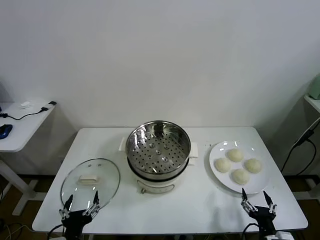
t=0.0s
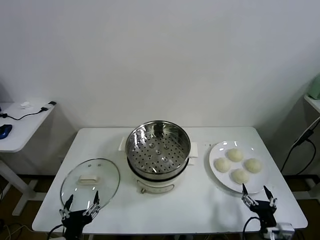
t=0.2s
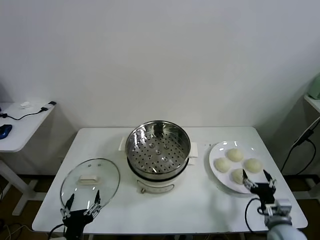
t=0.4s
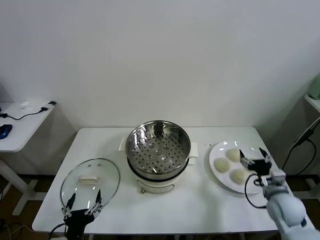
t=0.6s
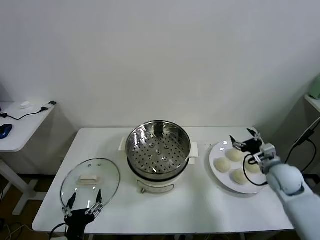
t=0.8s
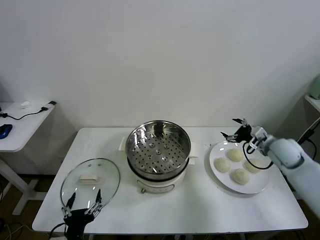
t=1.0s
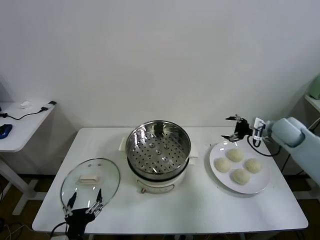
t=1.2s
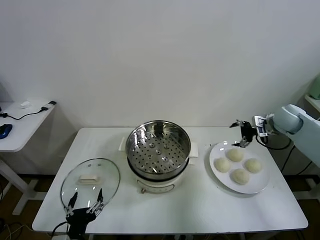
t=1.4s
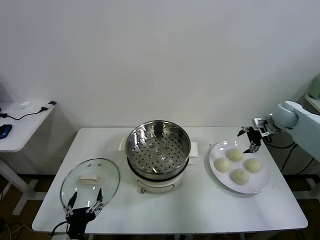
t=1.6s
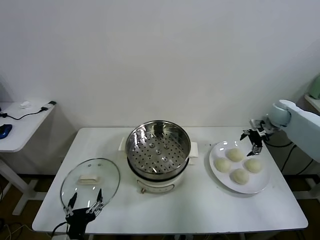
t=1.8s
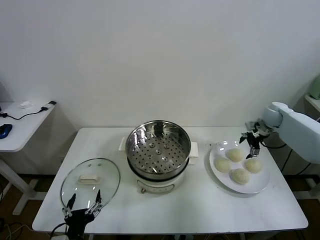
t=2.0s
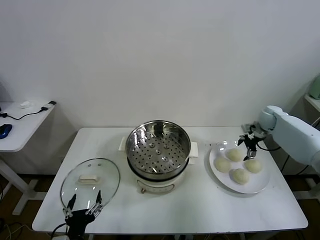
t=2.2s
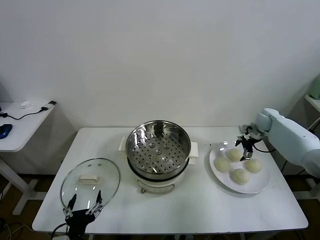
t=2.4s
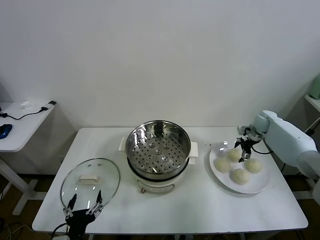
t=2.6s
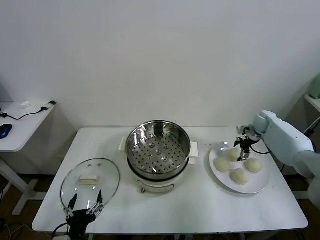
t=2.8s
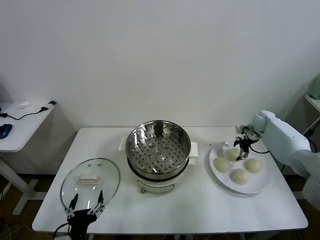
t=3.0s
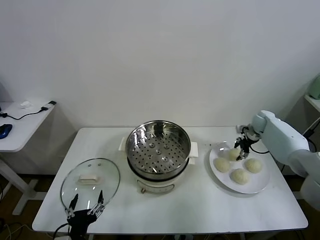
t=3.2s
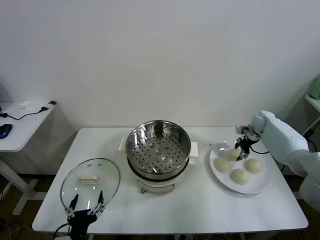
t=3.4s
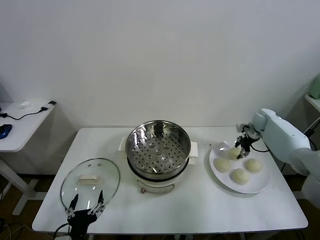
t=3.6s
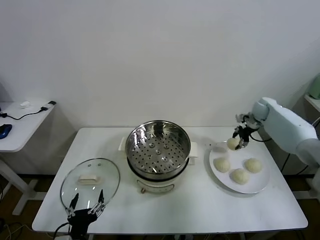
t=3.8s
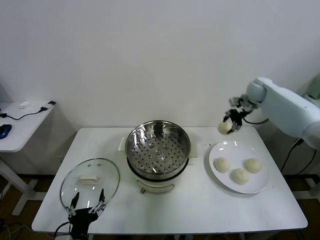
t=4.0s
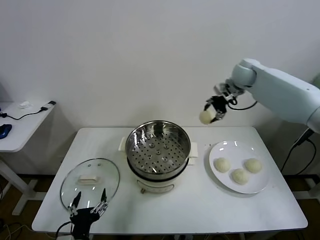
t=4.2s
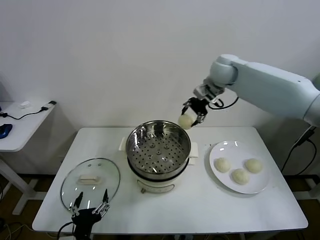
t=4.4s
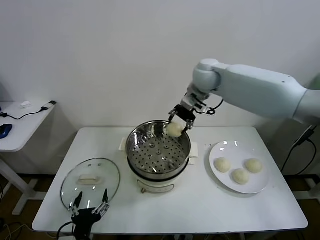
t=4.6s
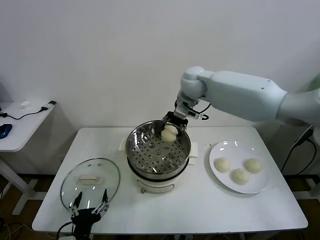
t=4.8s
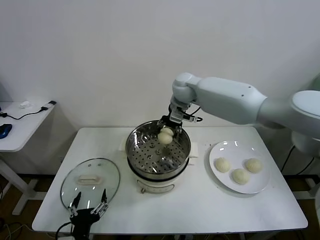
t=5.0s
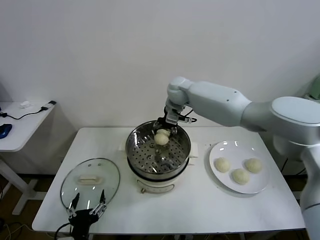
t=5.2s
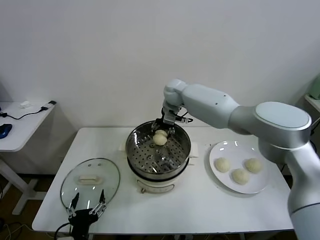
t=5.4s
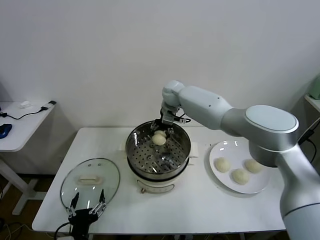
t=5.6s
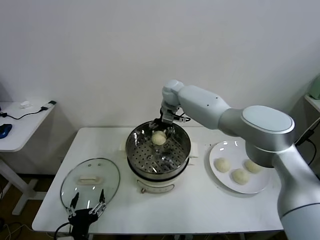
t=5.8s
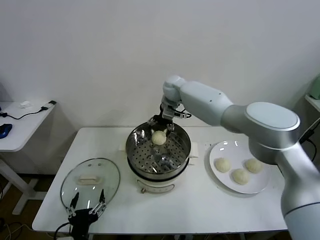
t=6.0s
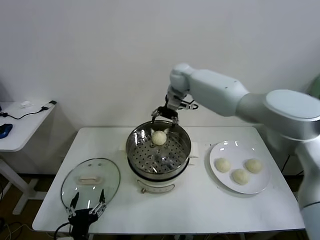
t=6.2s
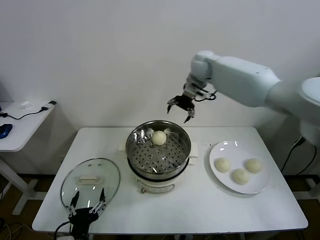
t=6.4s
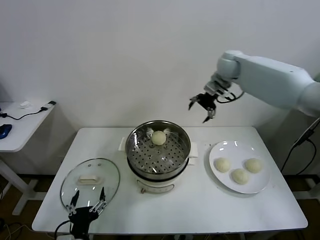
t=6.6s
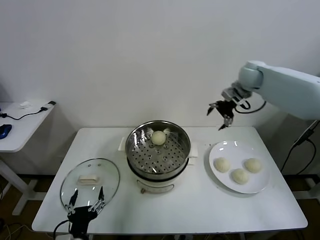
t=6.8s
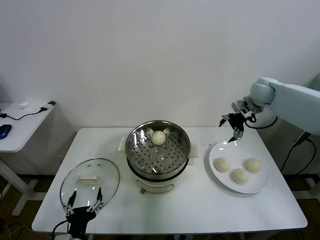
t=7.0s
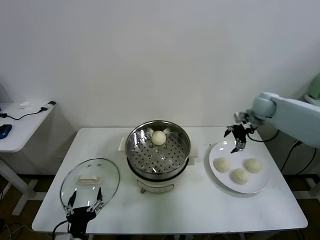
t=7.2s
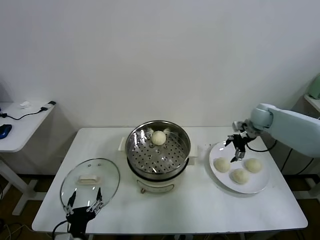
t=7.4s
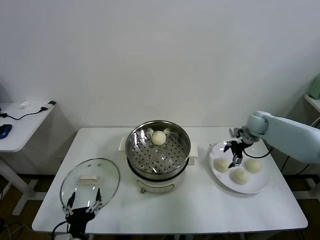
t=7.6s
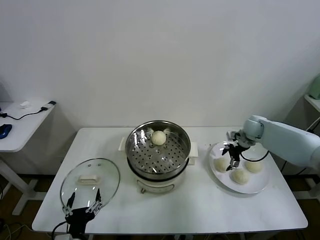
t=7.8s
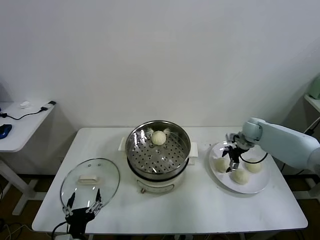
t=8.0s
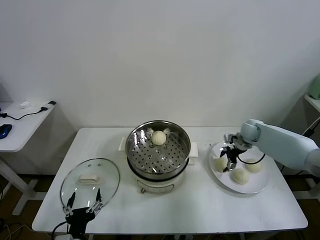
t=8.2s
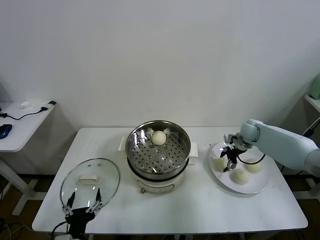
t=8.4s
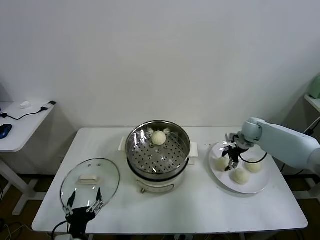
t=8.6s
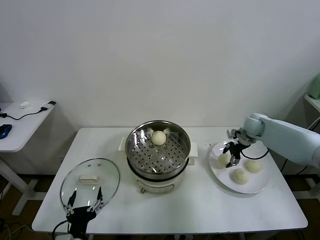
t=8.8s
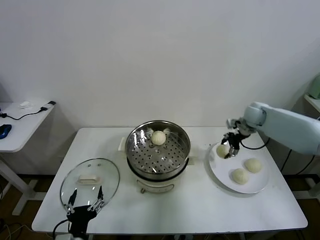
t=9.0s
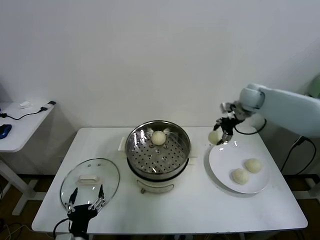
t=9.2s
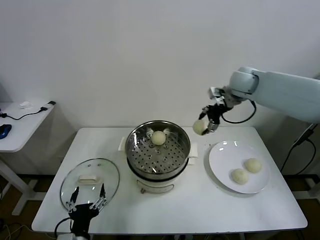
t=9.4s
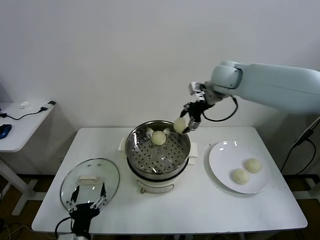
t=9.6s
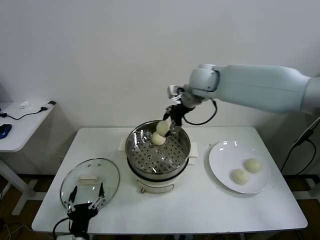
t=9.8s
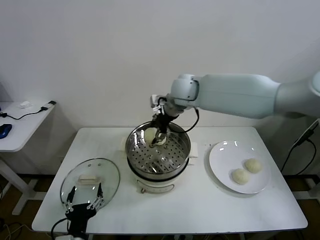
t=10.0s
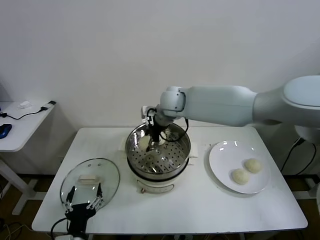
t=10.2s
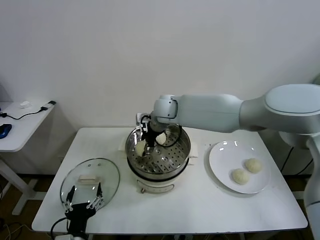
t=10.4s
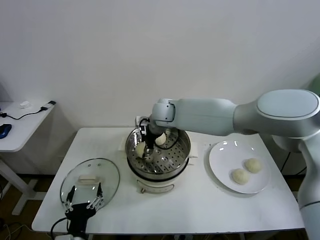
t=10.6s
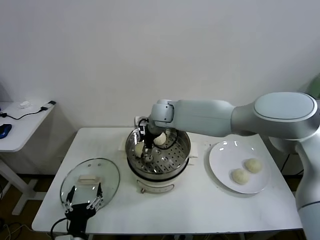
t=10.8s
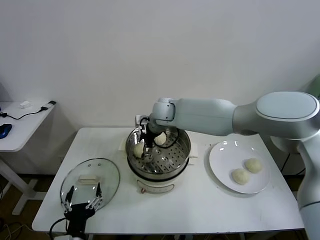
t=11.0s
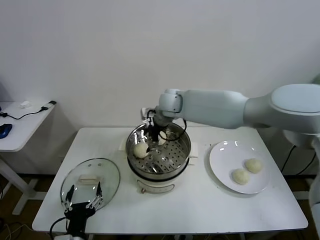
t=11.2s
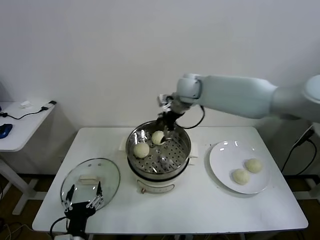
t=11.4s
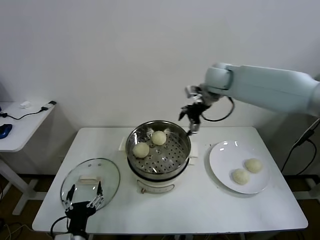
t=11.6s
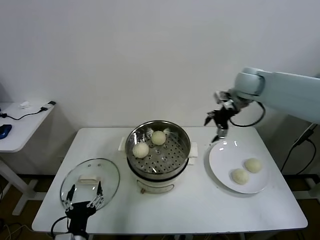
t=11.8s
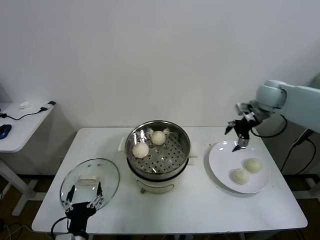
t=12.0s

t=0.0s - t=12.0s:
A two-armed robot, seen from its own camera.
Task of the whole recording: take steamed baozi put them in steamer.
Step, t=0.0s - t=3.2s: Grasp the baozi in the plate with right gripper.
Step, t=3.4s - t=5.8s: Place the baozi on the steamer with right gripper.
Step, t=6.0s - t=8.4s: Grasp the baozi in the plate with right gripper.
Step, t=8.6s - t=11.0s: Place the baozi on the steamer with right gripper.
t=1.6s - t=3.0s: The right gripper is displaced downward and forward by some 10 cm.
t=3.0s - t=4.4s: The right gripper shifts approximately 35 cm to the left and upward, and closes up.
t=4.4s - t=6.0s: The right gripper heads to the left, downward and forward, covering approximately 15 cm, and opens up.
t=6.0s - t=7.6s: The right gripper travels to the right and downward by roughly 35 cm.
t=7.6s - t=9.0s: The right gripper shifts about 10 cm upward, and closes its fingers.
t=9.0s - t=10.4s: The right gripper shifts approximately 35 cm to the left.
t=10.4s - t=12.0s: The right gripper heads to the right, covering some 35 cm, and opens up.

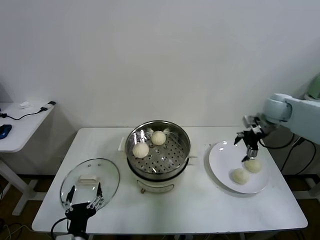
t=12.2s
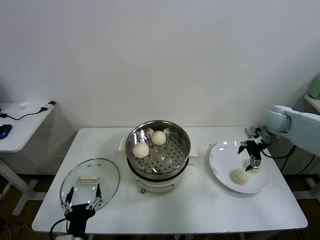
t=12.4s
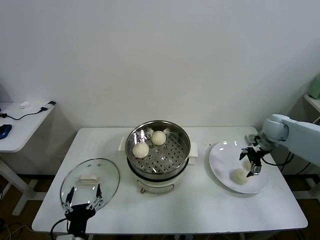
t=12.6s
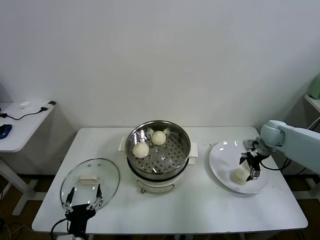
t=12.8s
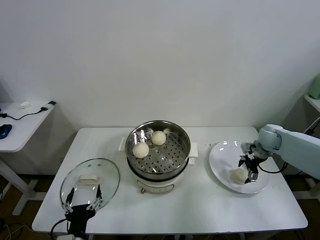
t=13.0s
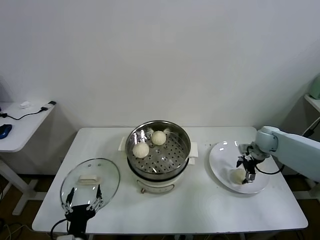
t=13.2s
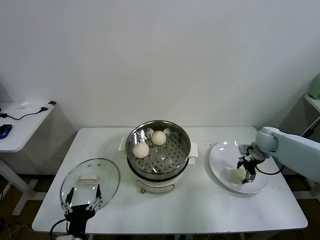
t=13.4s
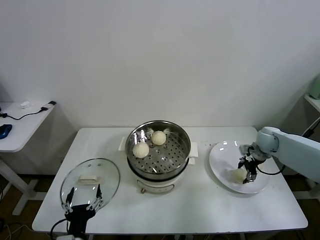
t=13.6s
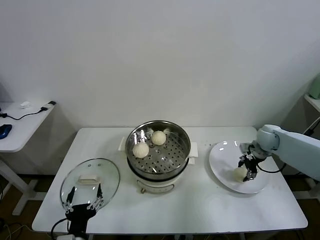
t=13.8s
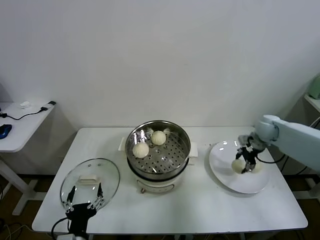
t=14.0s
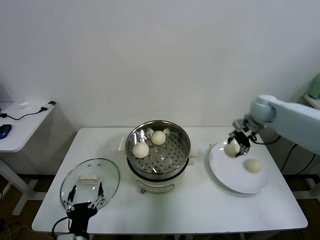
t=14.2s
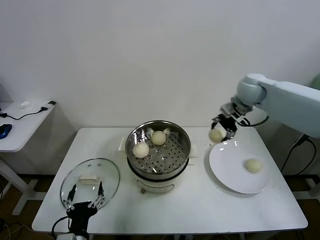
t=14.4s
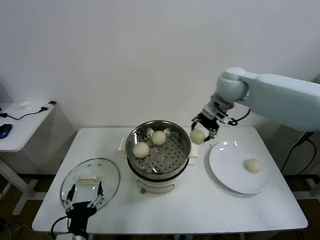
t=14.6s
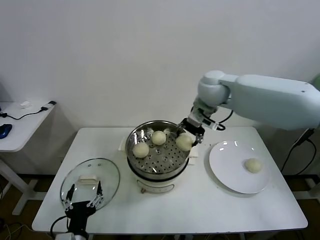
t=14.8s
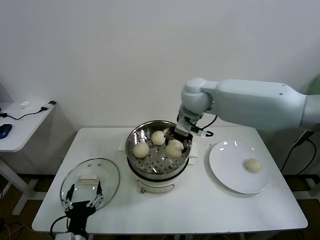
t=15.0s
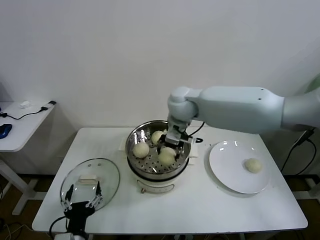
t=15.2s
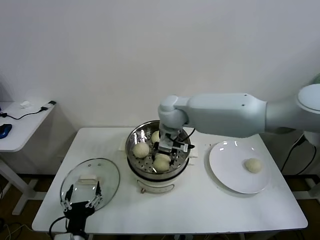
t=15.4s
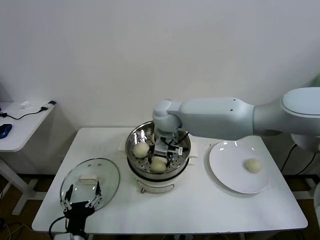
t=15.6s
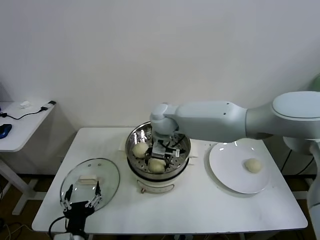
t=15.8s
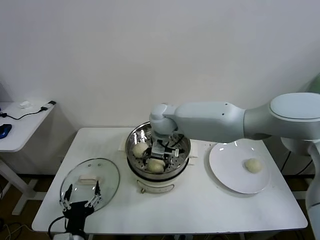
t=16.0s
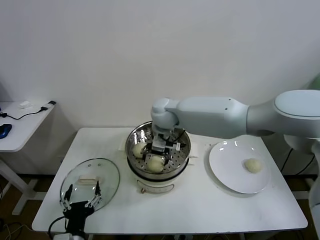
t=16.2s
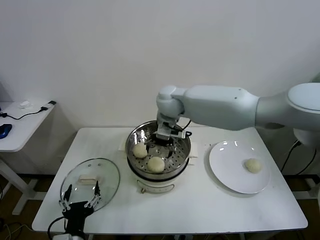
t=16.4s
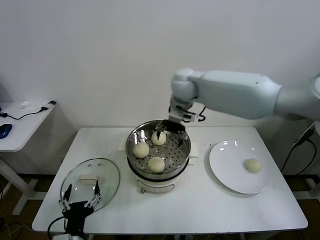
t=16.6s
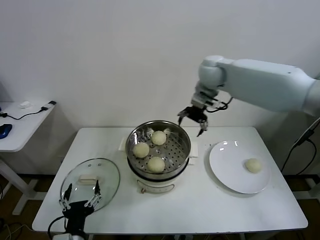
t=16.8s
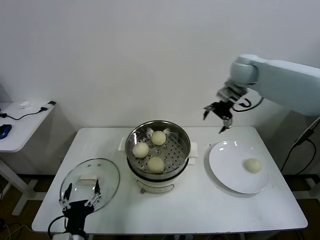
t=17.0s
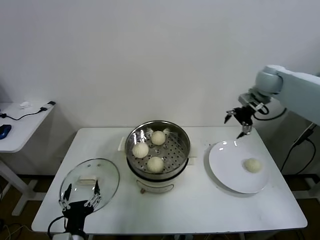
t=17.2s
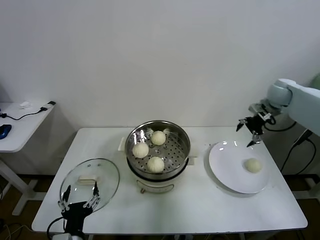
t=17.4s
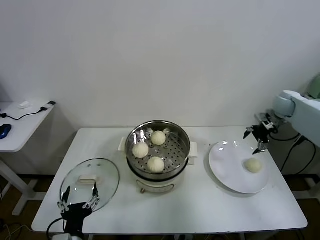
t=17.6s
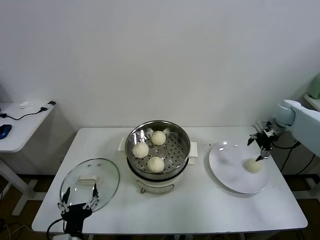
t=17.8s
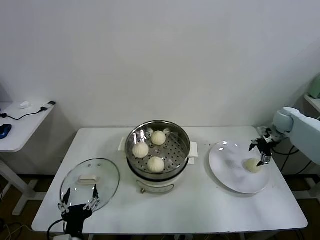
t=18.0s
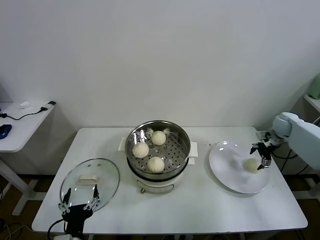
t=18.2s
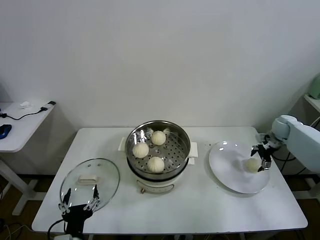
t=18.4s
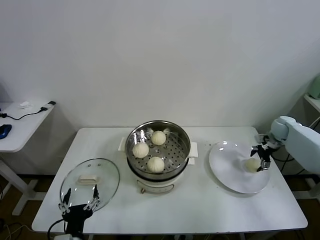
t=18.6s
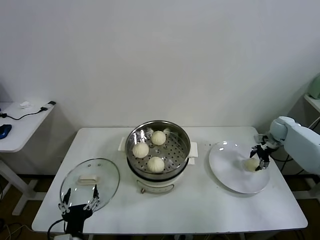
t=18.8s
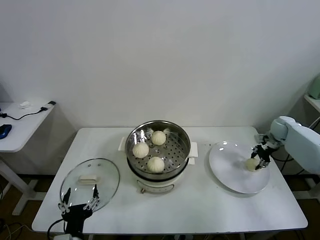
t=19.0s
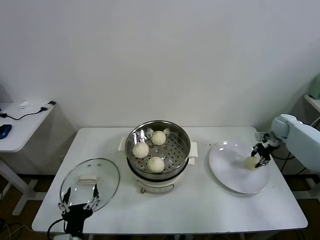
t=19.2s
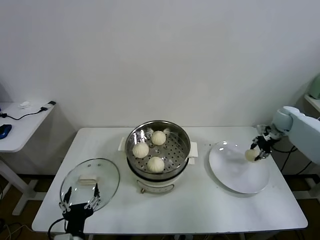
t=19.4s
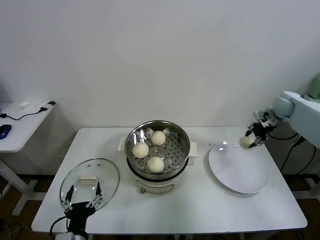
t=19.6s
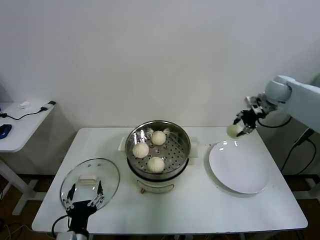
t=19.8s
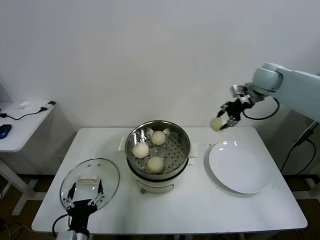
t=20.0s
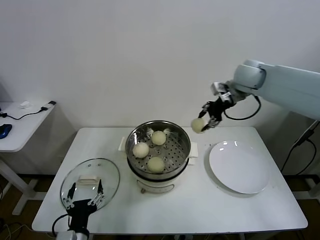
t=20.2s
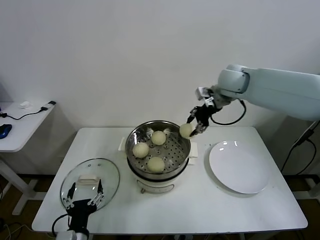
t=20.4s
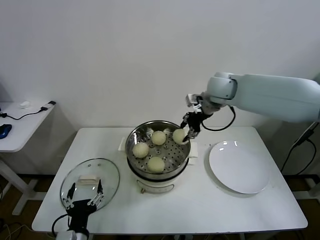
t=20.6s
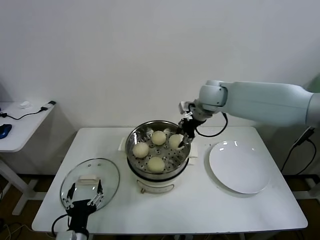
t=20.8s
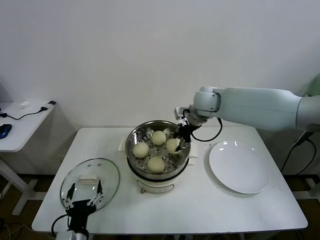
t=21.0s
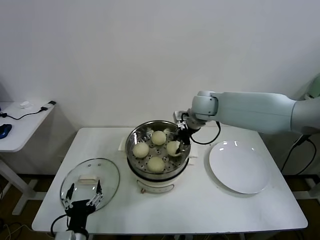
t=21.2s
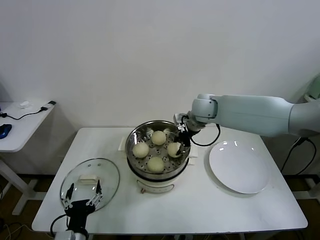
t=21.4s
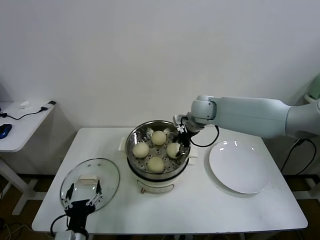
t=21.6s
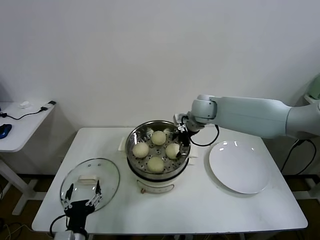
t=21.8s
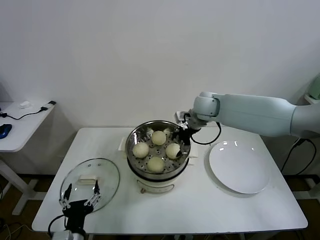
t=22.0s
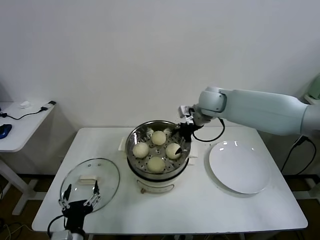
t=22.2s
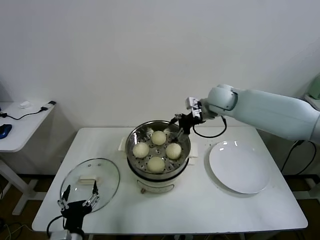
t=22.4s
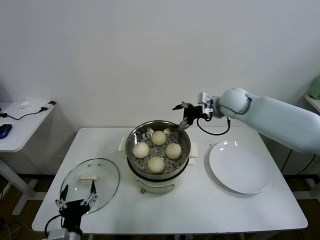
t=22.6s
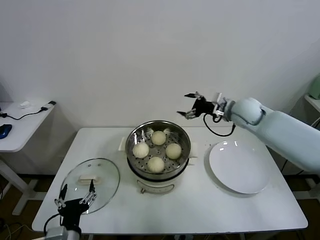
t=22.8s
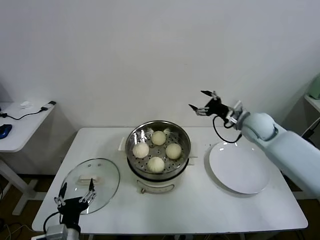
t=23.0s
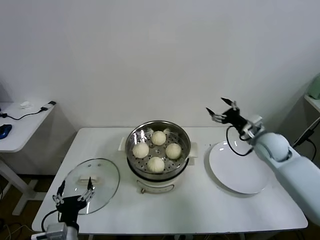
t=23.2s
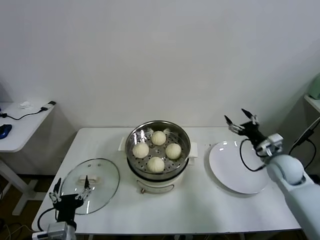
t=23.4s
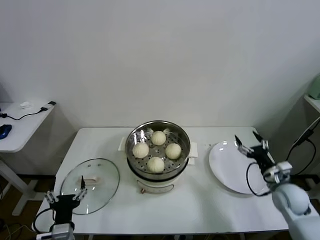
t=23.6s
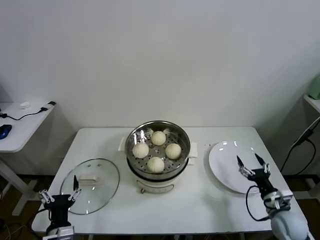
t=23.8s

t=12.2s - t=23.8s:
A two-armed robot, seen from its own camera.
Task of the whole recording: take steamed baozi put them in steamer.
Step, t=12.2s - t=13.6s: Grasp the baozi in the plate with right gripper.
Step, t=13.8s - t=16.2s: Place the baozi on the steamer with right gripper.
Step, t=16.4s - t=18.8s: Grasp the baozi in the plate with right gripper.
Step, t=19.0s - t=21.8s: Place the baozi on the steamer with right gripper.
t=12.2s - t=13.6s: The right gripper goes some 15 cm downward, and closes up.
t=13.6s - t=15.0s: The right gripper travels to the left and upward by roughly 40 cm.
t=15.0s - t=16.6s: The right gripper heads forward, covering about 5 cm, moves some 10 cm downward and comes back, and opens up.
t=16.6s - t=18.0s: The right gripper goes approximately 40 cm to the right and downward.
t=18.0s - t=19.4s: The right gripper closes.
t=19.4s - t=21.0s: The right gripper travels to the left by about 35 cm.
t=21.0s - t=22.4s: The right gripper opens up.
t=22.4s - t=23.8s: The left gripper changes place by about 5 cm, while the right gripper moves downward, backward and to the right, roughly 50 cm.
